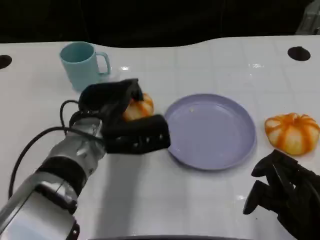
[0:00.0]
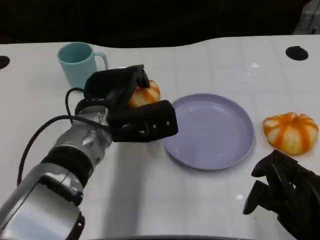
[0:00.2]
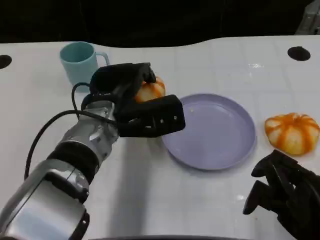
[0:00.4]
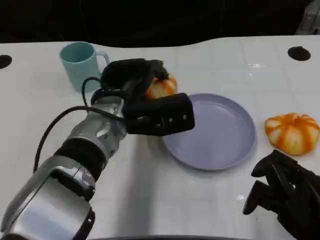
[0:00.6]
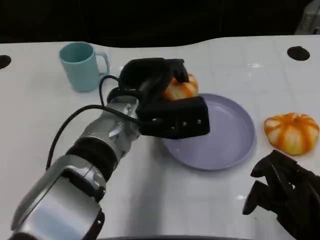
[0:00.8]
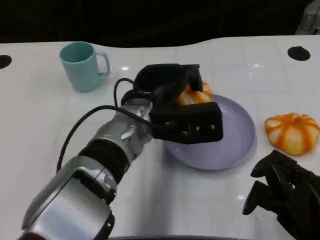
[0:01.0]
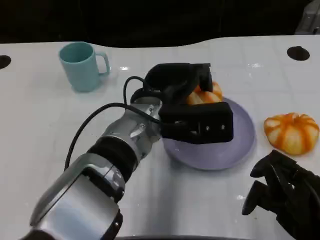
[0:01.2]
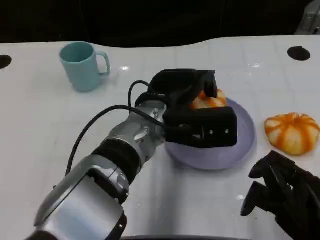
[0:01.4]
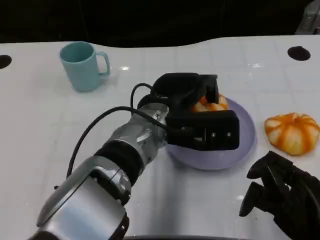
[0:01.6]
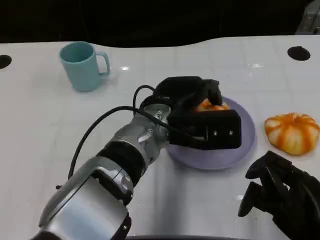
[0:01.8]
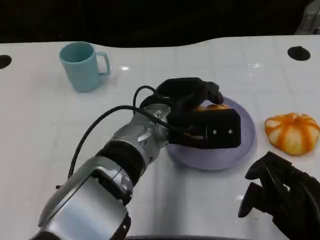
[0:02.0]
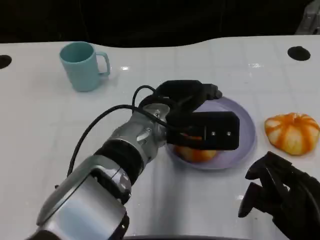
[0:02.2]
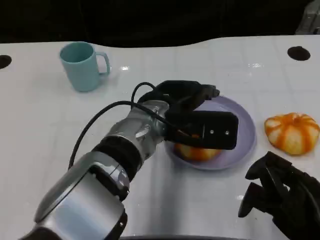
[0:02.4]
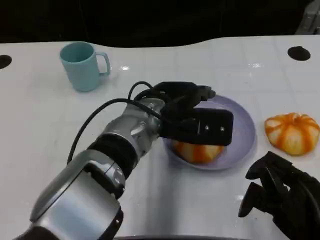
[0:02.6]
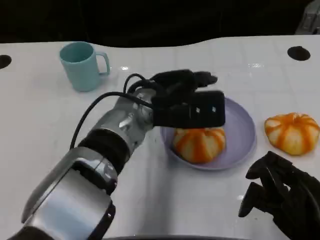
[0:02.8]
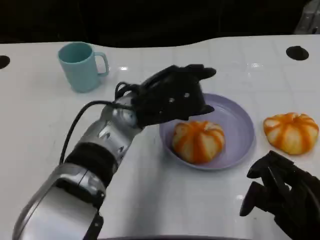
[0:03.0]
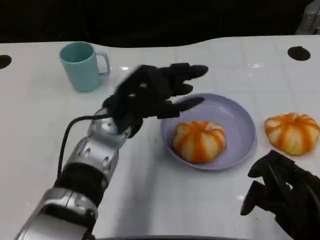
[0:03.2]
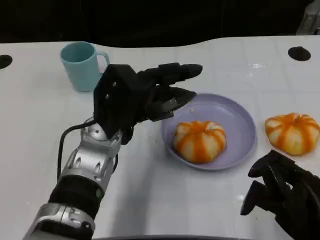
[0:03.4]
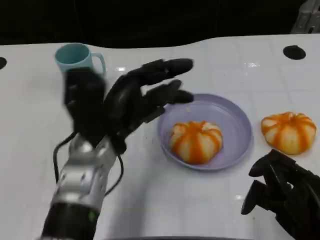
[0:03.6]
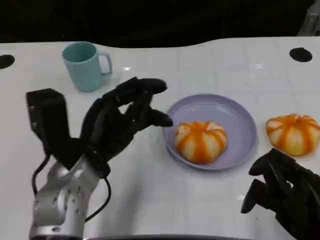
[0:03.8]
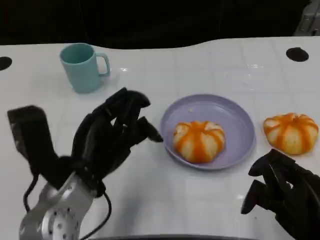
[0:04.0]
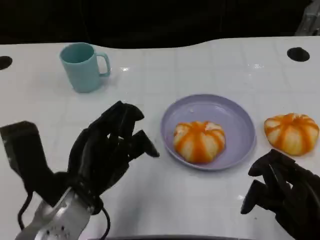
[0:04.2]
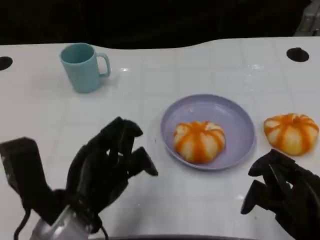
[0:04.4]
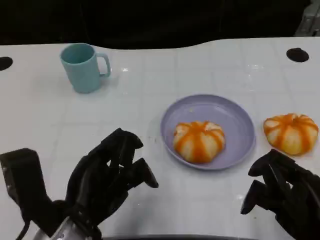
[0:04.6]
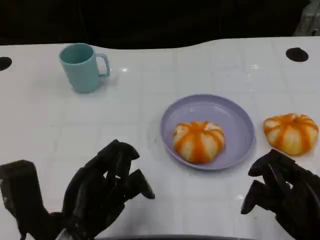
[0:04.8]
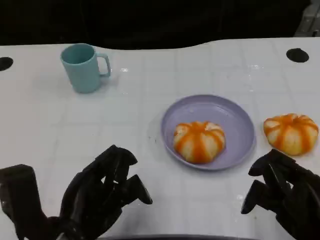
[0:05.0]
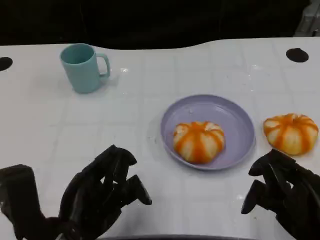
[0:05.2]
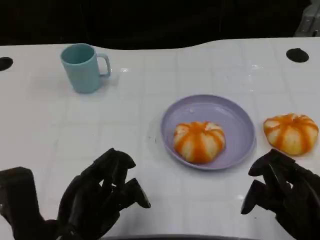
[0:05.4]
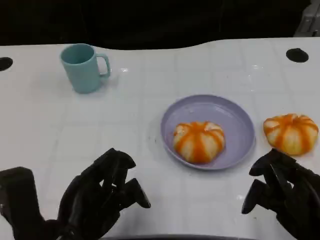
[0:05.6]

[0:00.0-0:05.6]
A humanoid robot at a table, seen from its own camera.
Task of the whole recording: Grasp the bread from the table and place it into the plate.
0.0 to 1.4 s: The left hand is displaced to the right by about 10 cm.
1.4 to 2.8 s: The hands make only small movements.
2.8 to 4.2 s: The left hand shifts about 15 cm backward and to the left.
4.2 to 5.6 s: The left hand shifts by roughly 5 cm.

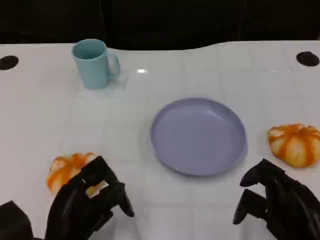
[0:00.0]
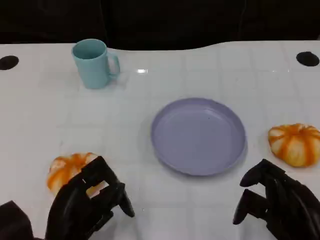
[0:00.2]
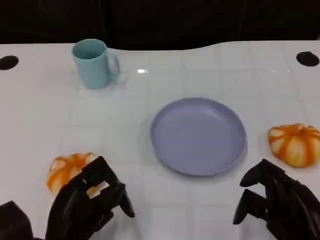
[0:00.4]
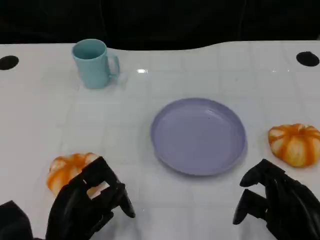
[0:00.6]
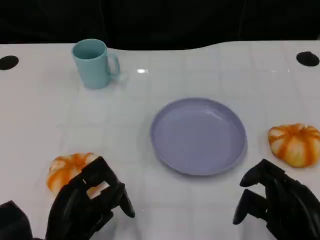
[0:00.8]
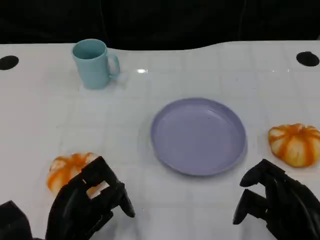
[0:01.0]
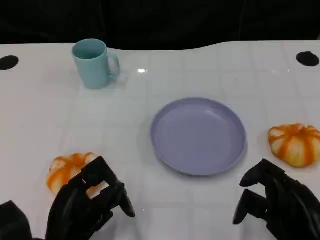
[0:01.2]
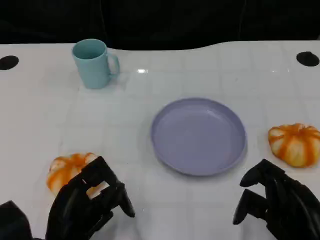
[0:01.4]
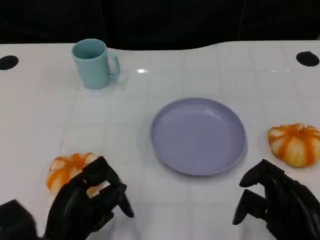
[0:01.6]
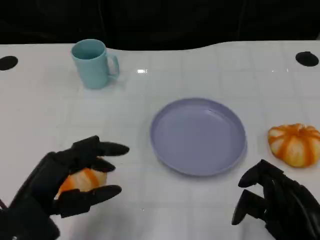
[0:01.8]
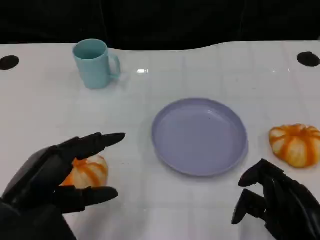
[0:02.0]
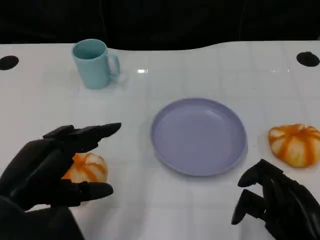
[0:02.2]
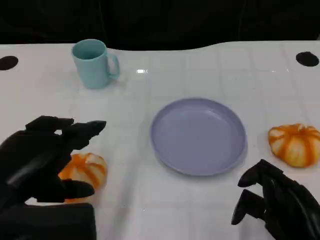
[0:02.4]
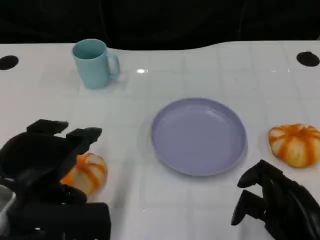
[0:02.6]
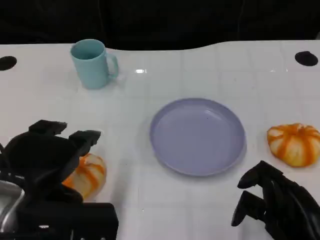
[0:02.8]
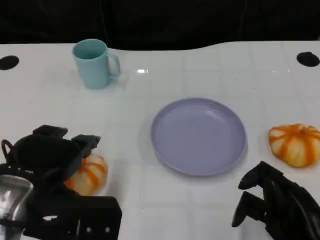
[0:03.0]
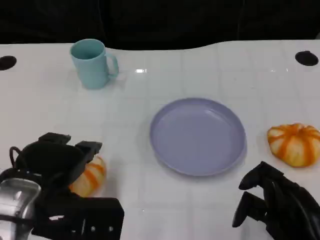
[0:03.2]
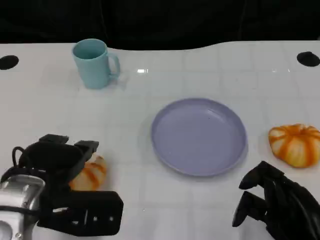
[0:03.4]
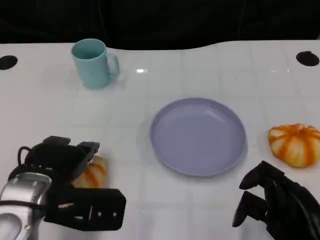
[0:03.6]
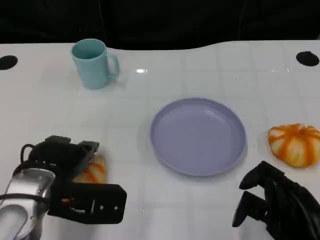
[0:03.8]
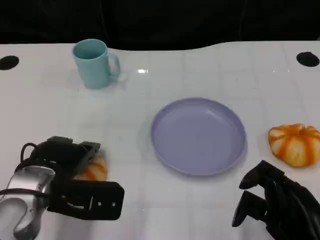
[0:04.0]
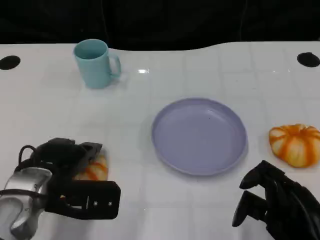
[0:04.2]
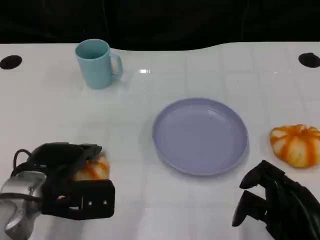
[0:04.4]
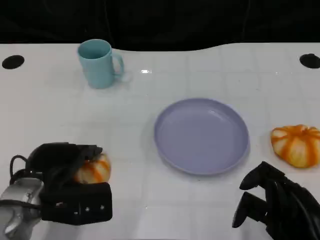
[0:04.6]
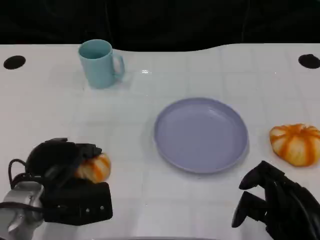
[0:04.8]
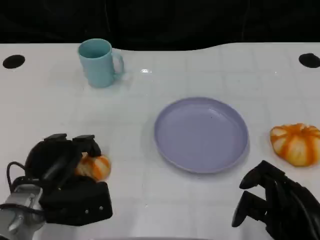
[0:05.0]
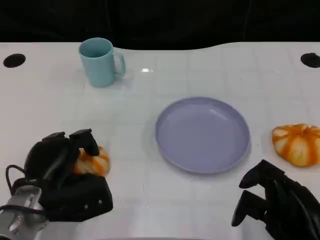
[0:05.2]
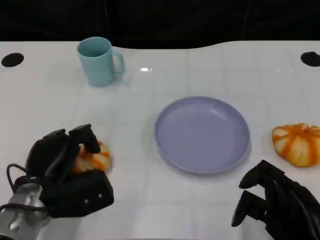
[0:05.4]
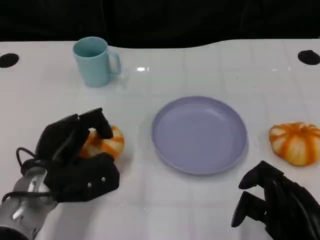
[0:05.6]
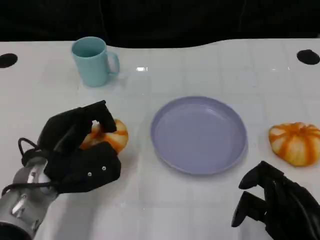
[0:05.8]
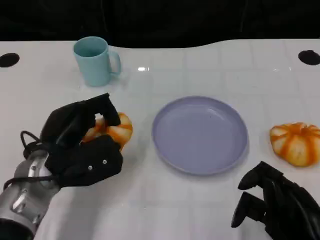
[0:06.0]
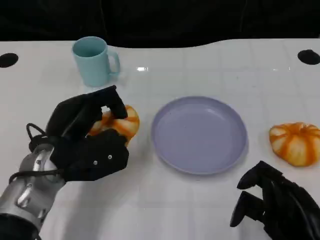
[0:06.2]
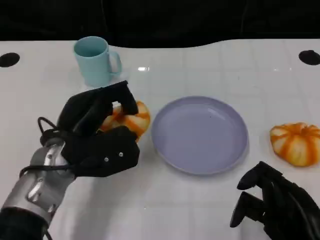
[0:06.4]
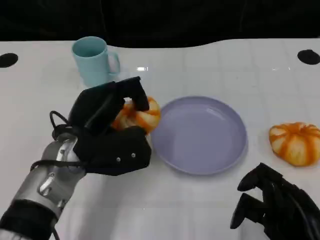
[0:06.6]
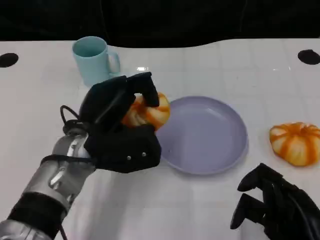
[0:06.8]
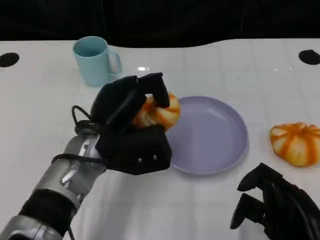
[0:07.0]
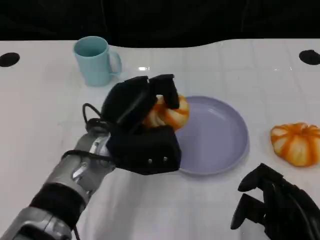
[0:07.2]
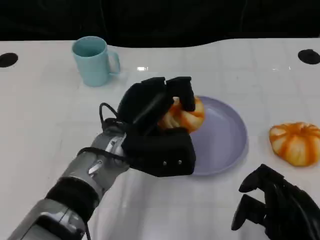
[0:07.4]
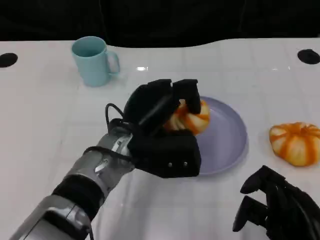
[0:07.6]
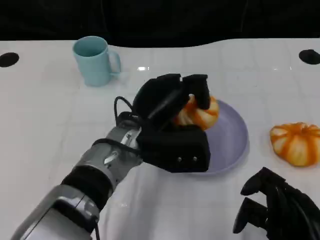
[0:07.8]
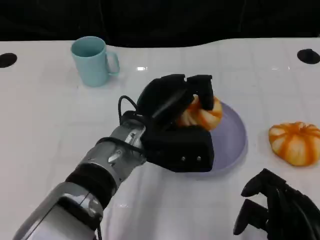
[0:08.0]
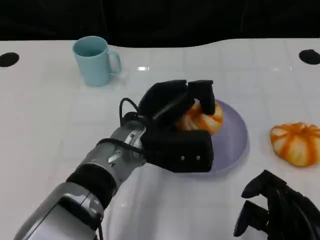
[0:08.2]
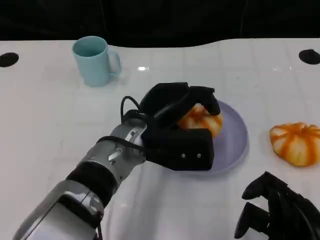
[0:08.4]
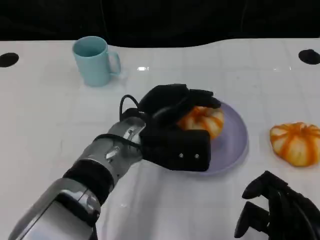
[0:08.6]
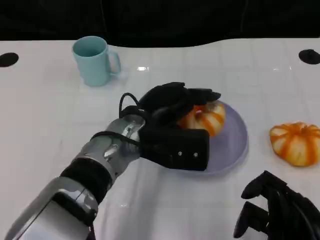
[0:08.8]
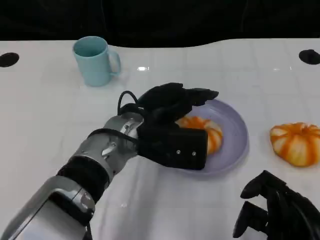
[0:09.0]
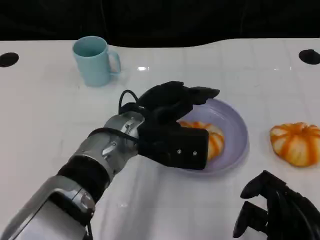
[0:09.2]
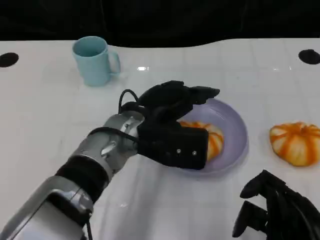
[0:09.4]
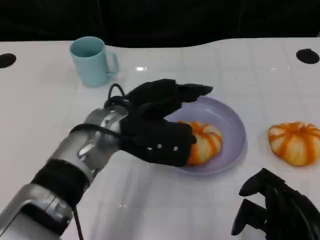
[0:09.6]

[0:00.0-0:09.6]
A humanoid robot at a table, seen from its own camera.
Task of the whole recording: Grasp the bread from the table and place it into the plate.
0.0 to 1.6 s: The hands stay close to where they were, moving slightly.
1.6 to 3.2 s: The left hand moves upward, some 10 cm.
3.2 to 4.8 s: The left hand is displaced downward by some 10 cm.
4.8 to 6.4 s: The left hand heads upward and to the right, covering some 10 cm.
6.4 to 8.0 s: The left hand shifts about 10 cm to the right.
8.0 to 9.6 s: The left hand changes place by about 5 cm.

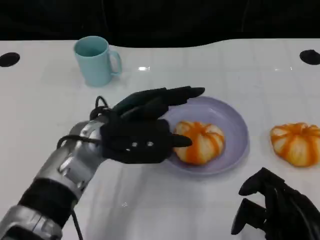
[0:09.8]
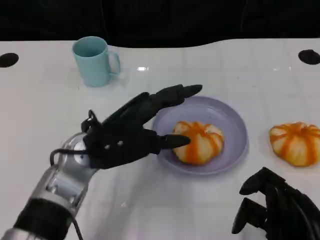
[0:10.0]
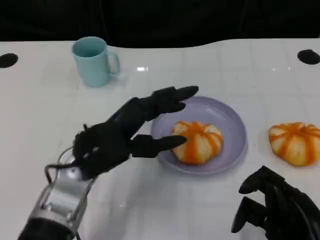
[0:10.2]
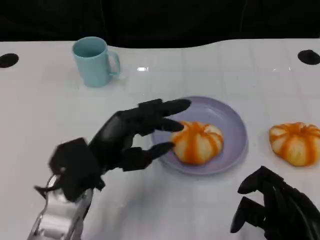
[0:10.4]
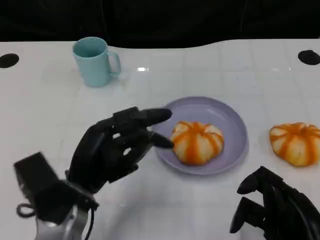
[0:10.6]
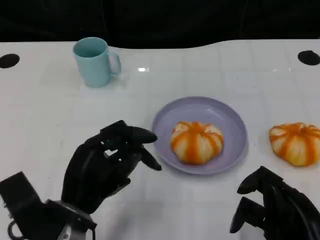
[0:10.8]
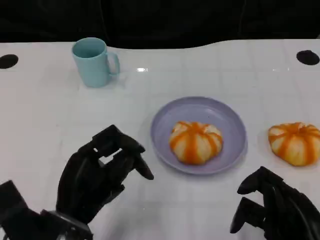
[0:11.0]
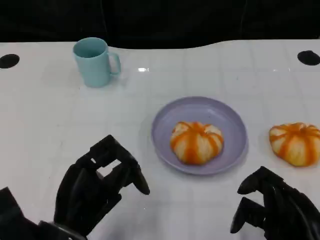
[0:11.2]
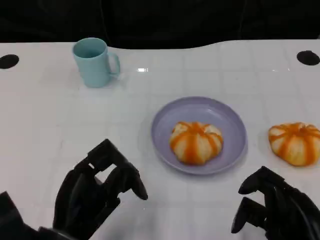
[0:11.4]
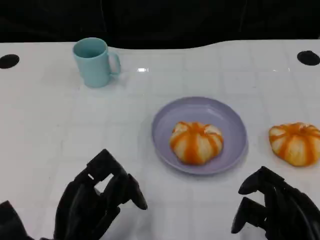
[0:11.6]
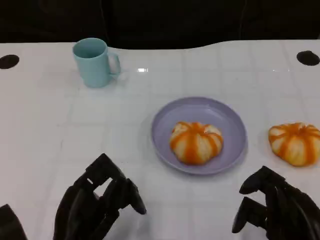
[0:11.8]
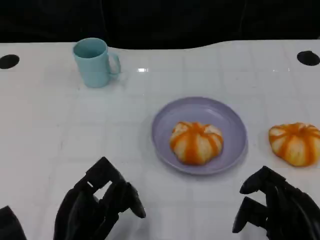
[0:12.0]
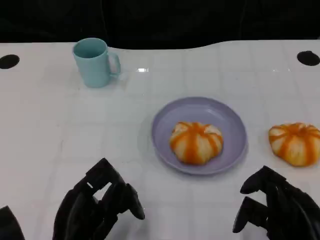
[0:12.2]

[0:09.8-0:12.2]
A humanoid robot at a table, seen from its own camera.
Task of the whole recording: Grasp the bread from the table and place it into the plate.
9.8 to 11.0 s: The left hand is displaced backward, downward and to the left by about 15 cm.
11.0 to 12.2 s: The hands stay close to where they were, moving slightly.

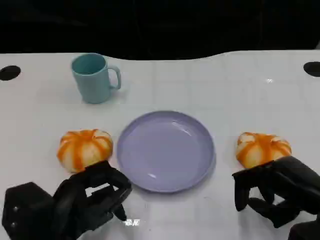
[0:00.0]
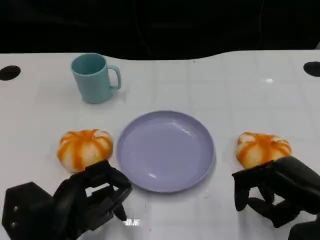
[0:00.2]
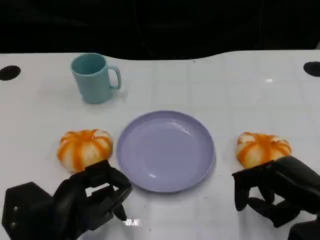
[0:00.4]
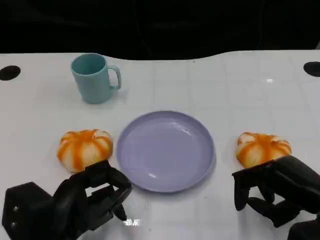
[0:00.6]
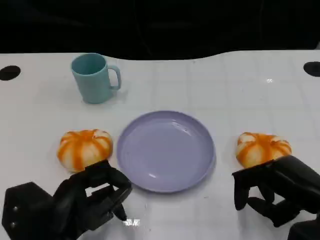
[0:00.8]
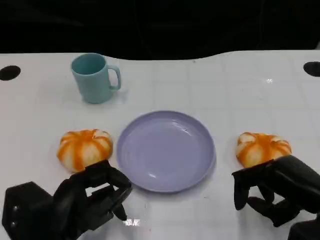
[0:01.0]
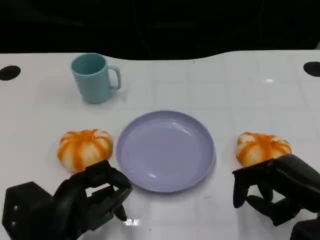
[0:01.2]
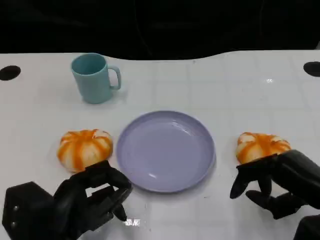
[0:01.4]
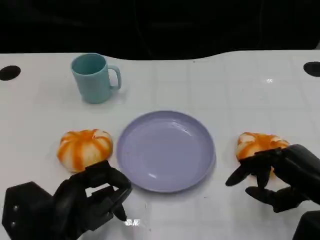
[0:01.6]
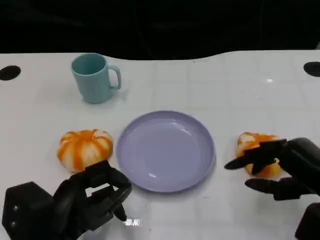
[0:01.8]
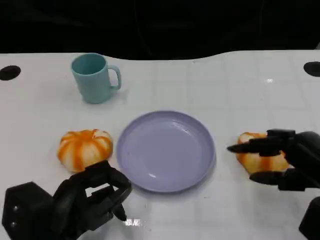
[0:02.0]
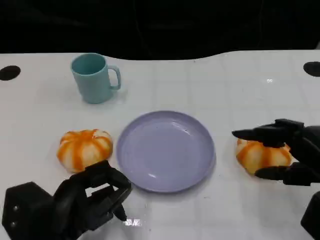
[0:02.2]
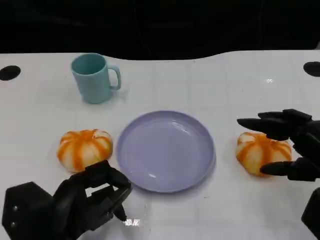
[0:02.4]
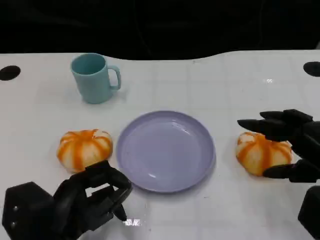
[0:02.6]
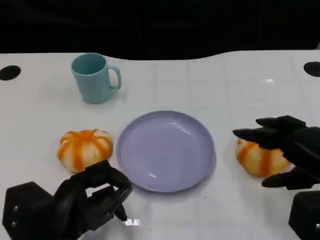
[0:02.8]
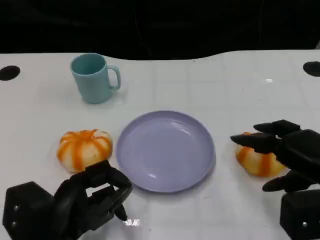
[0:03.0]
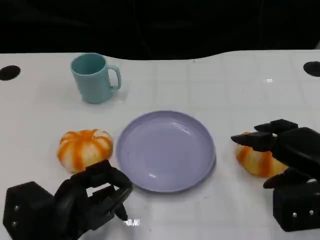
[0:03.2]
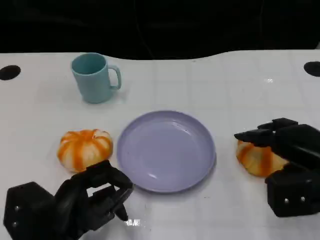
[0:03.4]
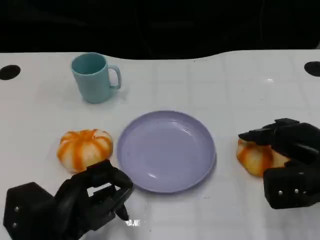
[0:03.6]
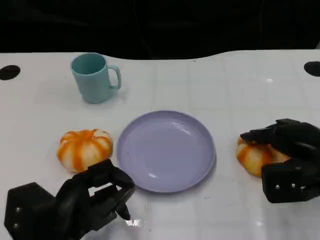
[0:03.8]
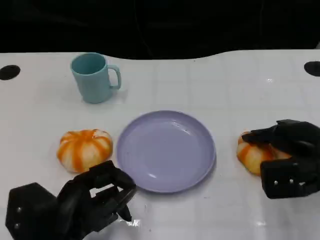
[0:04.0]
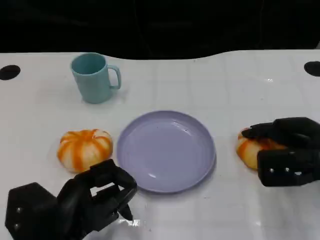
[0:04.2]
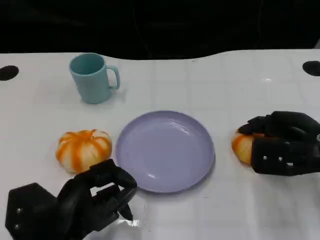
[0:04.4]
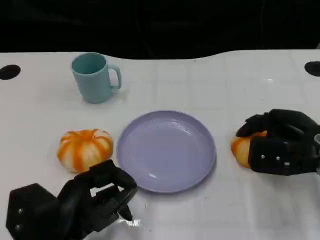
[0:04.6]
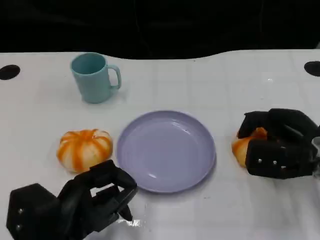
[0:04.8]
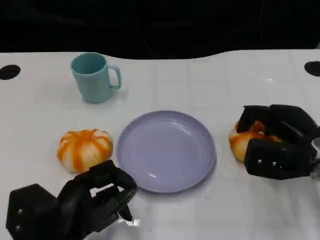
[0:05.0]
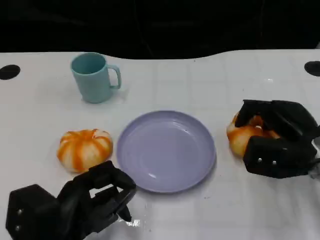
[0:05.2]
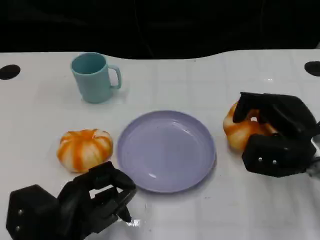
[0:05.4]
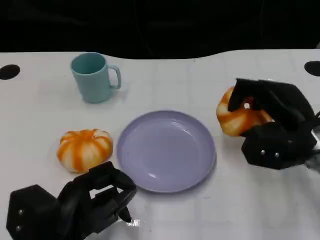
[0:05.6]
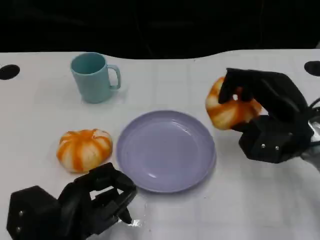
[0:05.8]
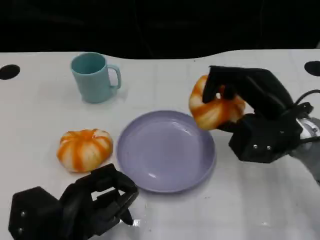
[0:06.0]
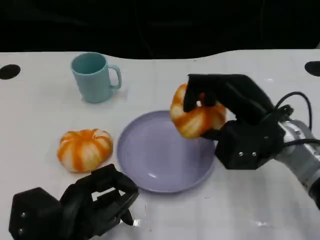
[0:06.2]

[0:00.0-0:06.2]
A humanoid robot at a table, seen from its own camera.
Task of the whole recording: Grasp the bread from the table and place it into the plate.
0.0 to 1.6 s: The hands make only small movements.
3.2 to 4.6 s: The right hand travels forward by some 5 cm.
4.6 to 6.2 s: The right hand is displaced to the left by about 5 cm.
